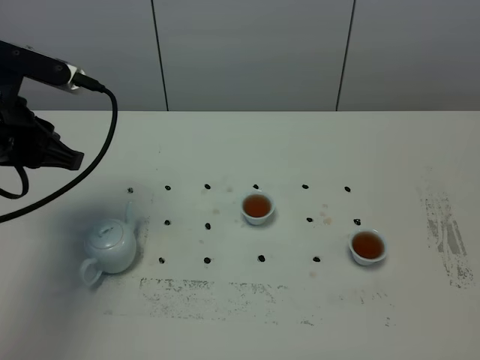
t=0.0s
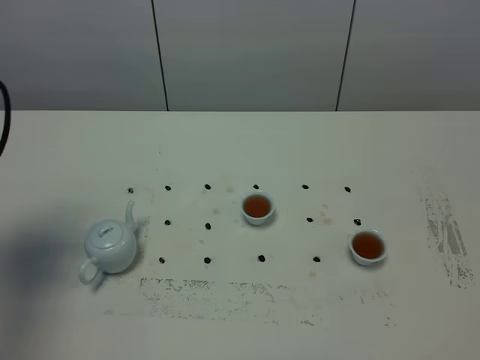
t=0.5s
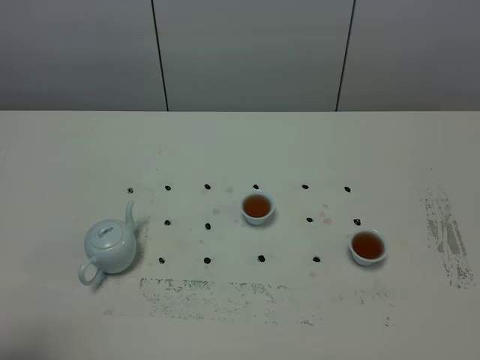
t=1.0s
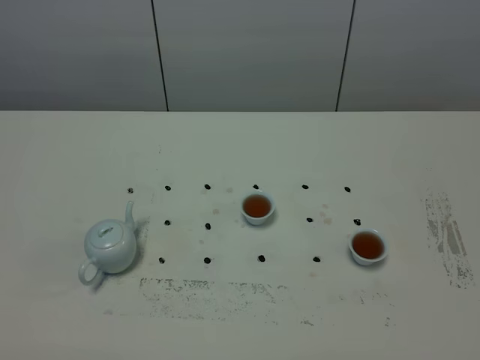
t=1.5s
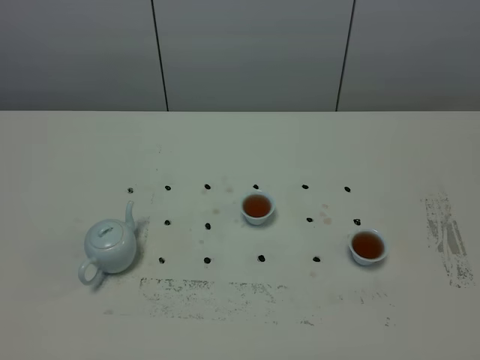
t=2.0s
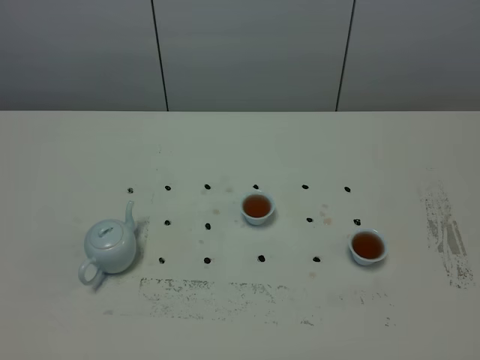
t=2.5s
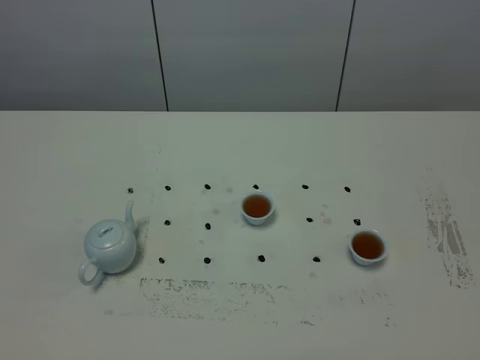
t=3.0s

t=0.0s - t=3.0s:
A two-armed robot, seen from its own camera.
Task of the whole recording: grasp the blue porcelain teapot and pour the tea into the two blue porcelain teacups one by one, put the blue porcelain teapot back in its original place.
t=0.0s - t=1.5s: The left gripper shifts some 30 cm backward.

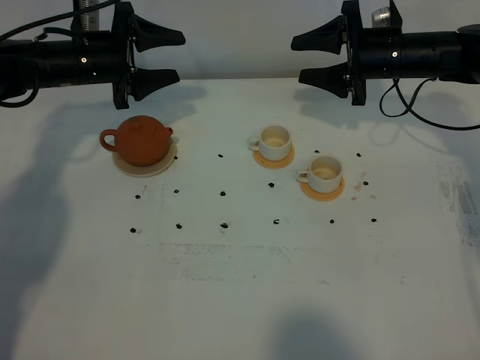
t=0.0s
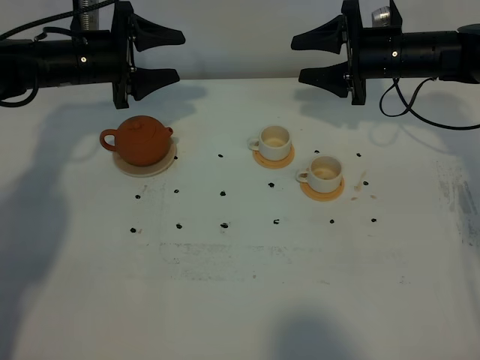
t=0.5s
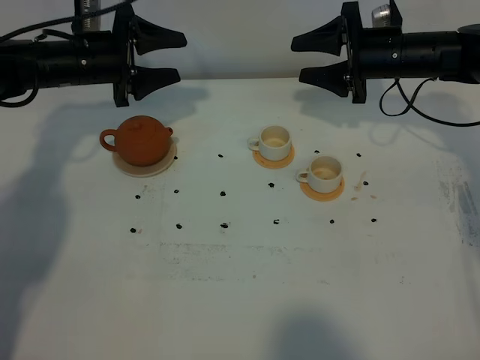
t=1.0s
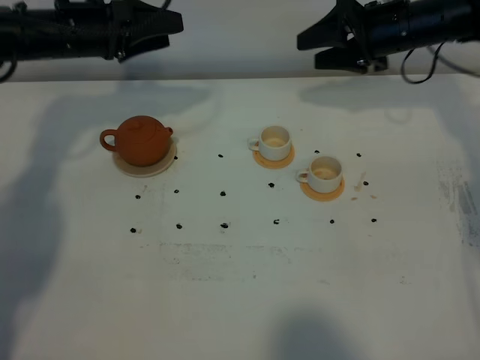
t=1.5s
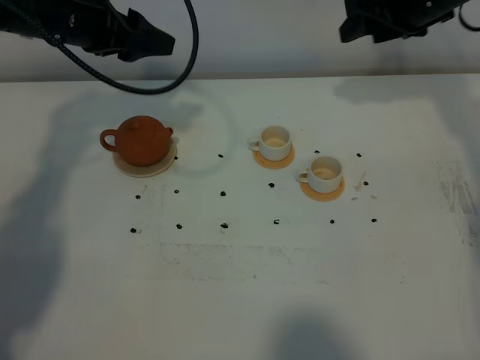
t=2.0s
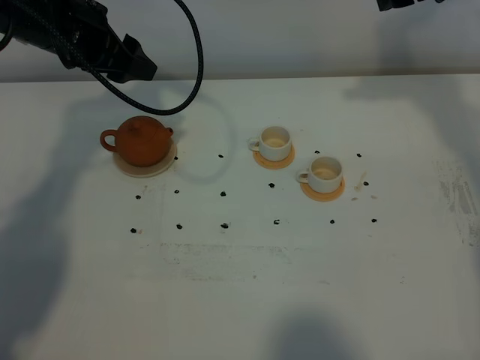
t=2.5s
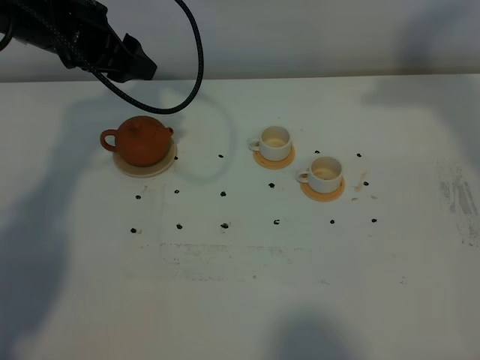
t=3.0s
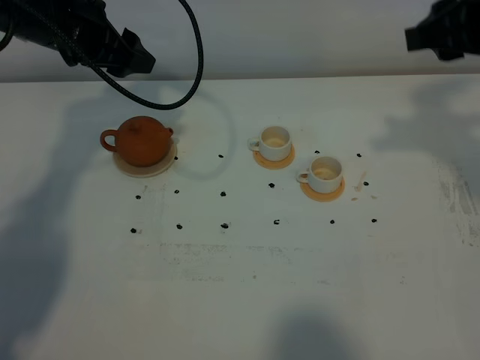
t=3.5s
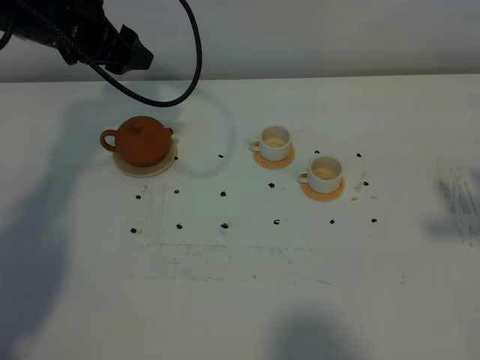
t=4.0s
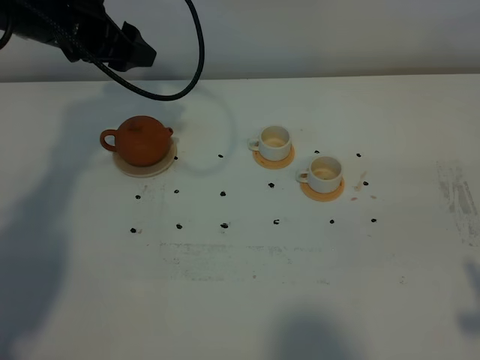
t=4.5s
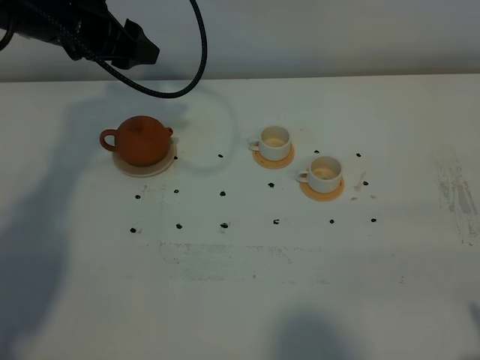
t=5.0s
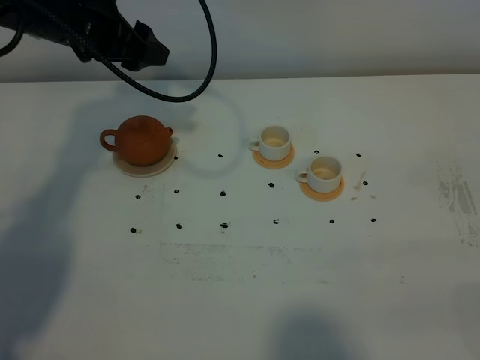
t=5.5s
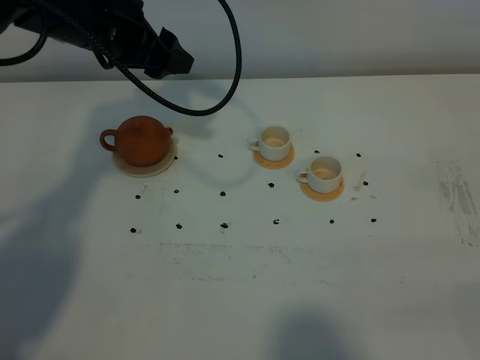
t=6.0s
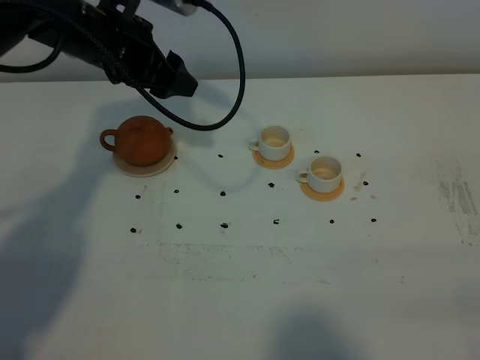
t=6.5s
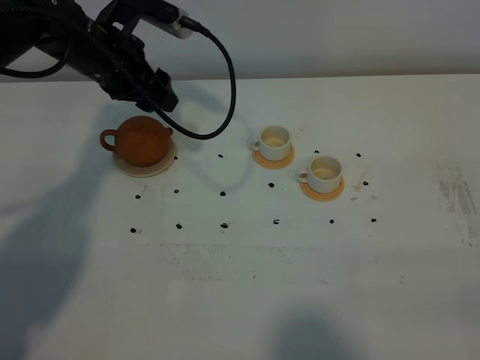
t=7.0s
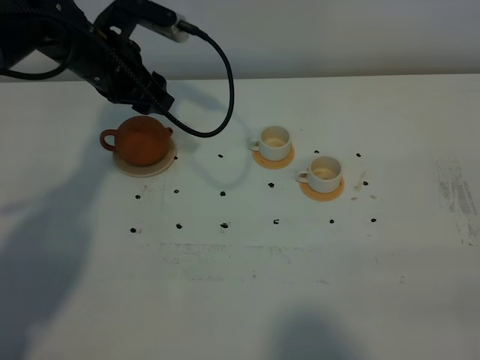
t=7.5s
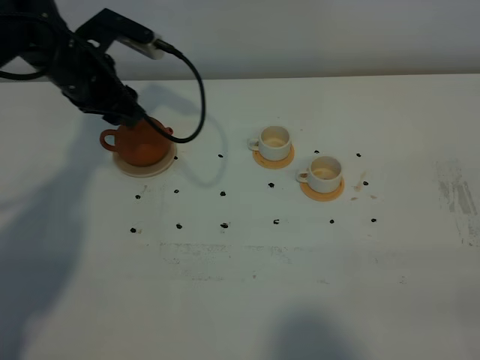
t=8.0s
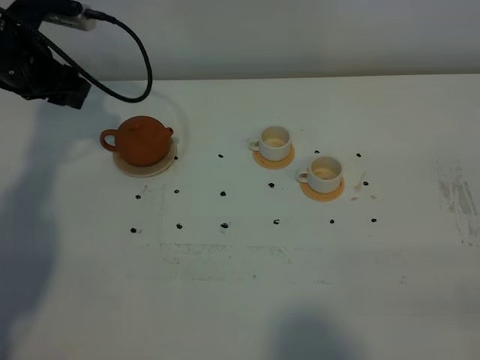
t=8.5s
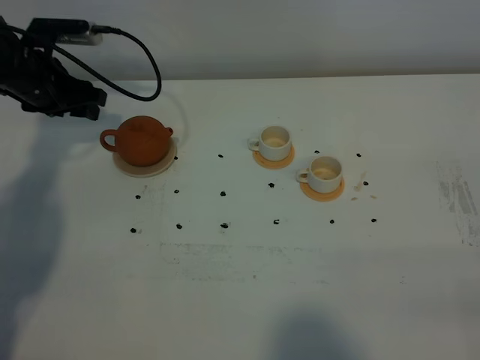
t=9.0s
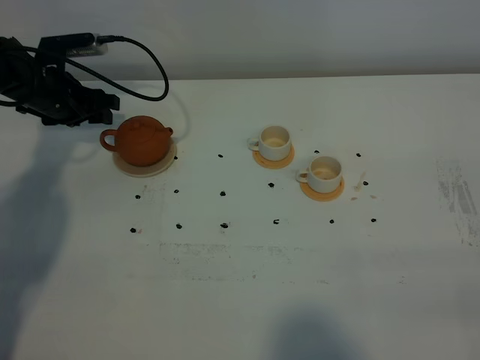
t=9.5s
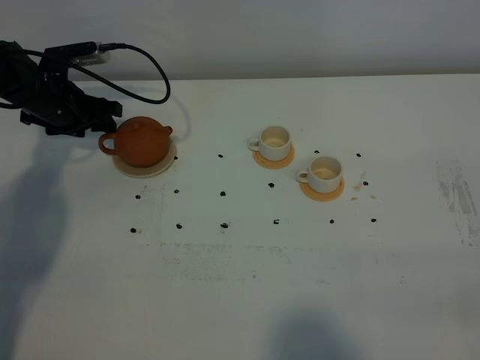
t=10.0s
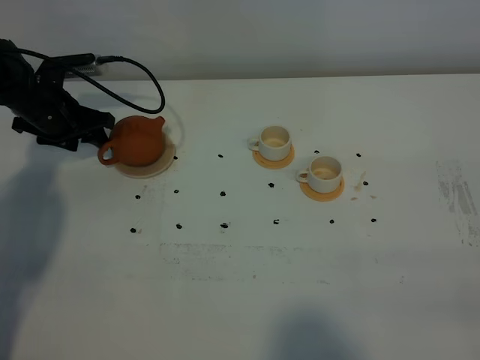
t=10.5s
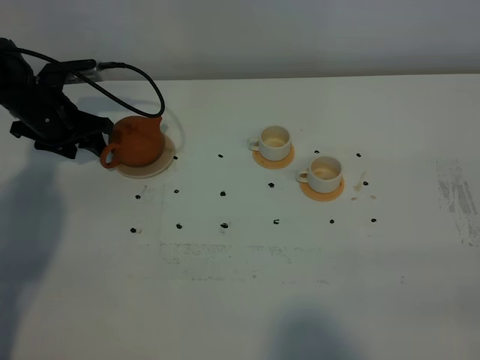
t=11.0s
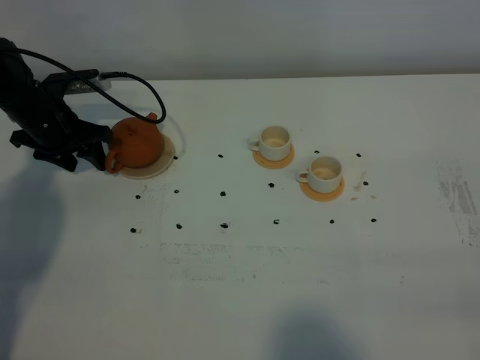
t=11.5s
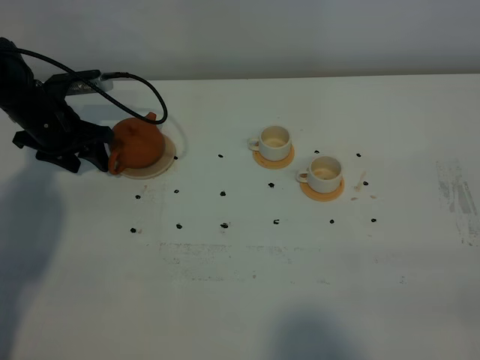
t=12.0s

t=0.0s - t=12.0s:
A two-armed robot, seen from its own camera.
Task of the whole recording: grasp the brown teapot and pour the tea into the two white teacups one by one, put the brown teapot back in its original place.
t=0.0s - t=2.0s: The two grippers go approximately 10 cm upward.
t=2.0s - t=4.0s: The right gripper heads backward, covering about 30 cm, and closes.
t=4.0s - t=6.0s: The right gripper goes some 20 cm backward and downward, and closes up.
t=6.0s - t=8.0s: The left gripper is displaced downward and to the left by some 10 cm.
t=8.0s - t=10.0s: The left gripper is displaced downward and to the left by roughly 10 cm.
t=10.0s - t=12.0s: The grippers move only a little.

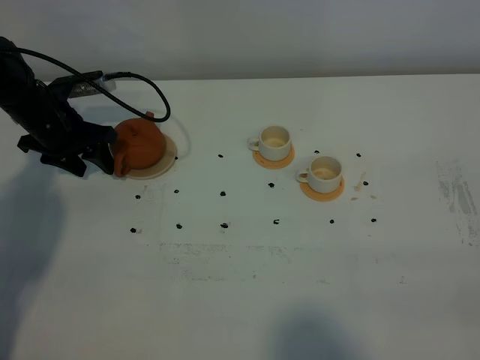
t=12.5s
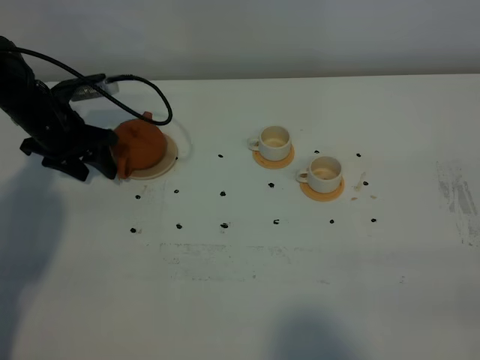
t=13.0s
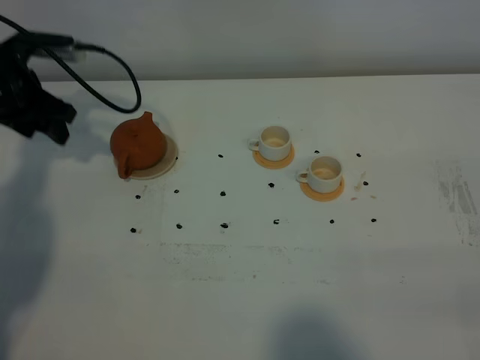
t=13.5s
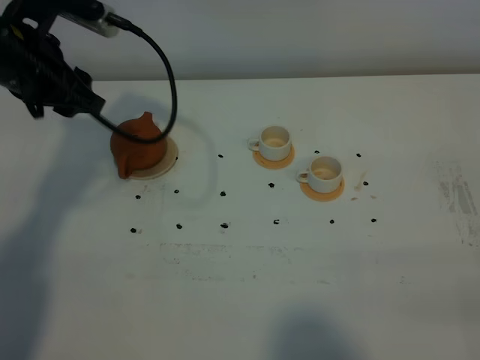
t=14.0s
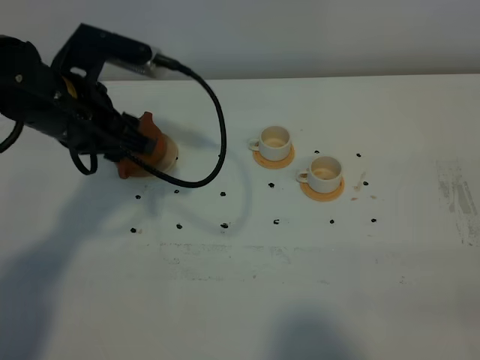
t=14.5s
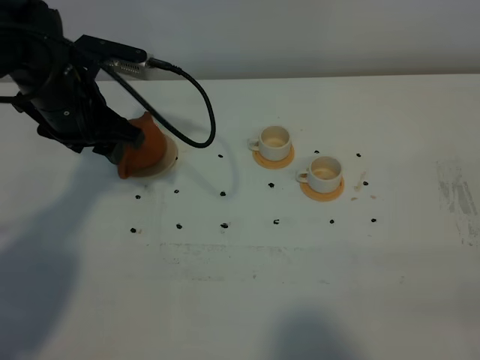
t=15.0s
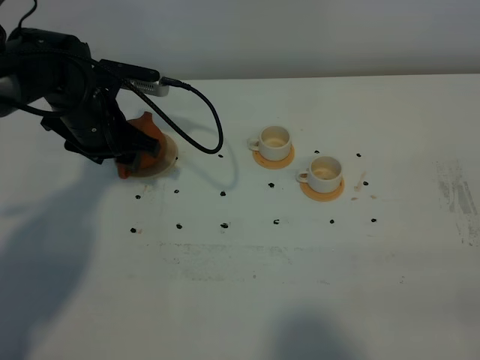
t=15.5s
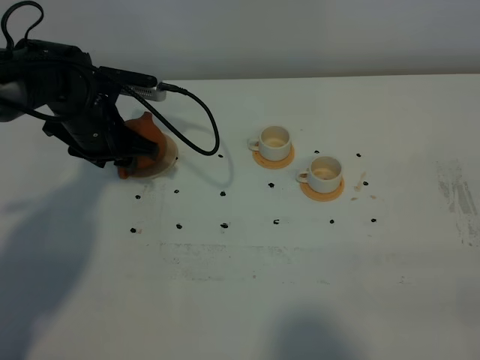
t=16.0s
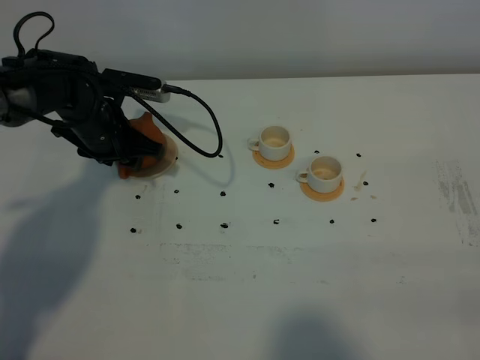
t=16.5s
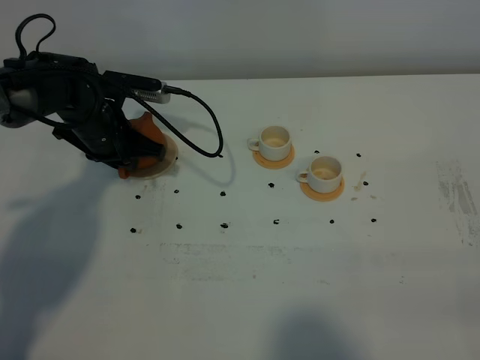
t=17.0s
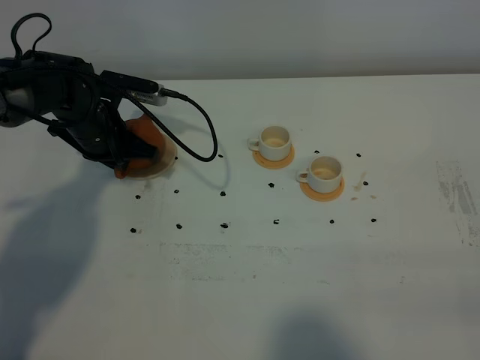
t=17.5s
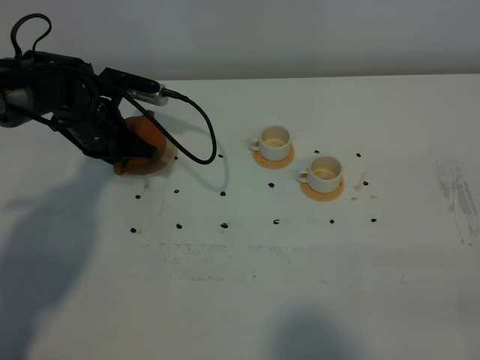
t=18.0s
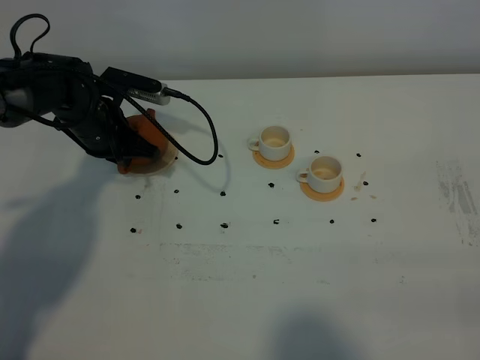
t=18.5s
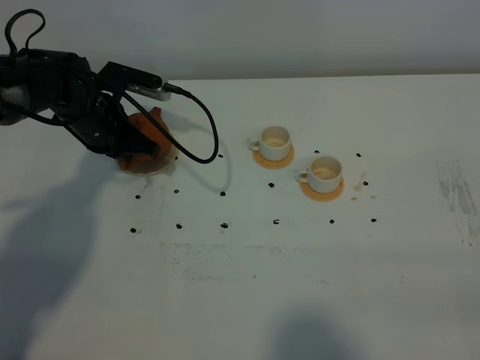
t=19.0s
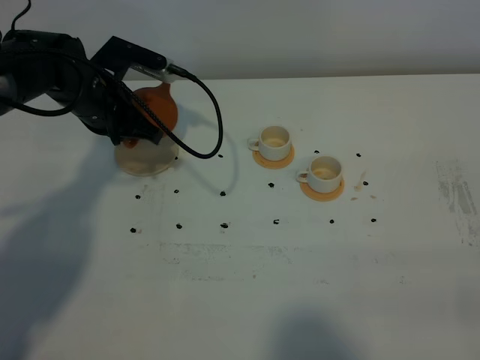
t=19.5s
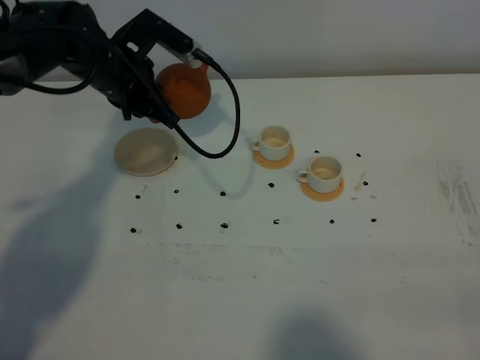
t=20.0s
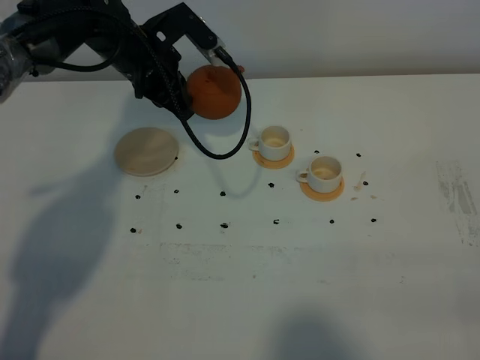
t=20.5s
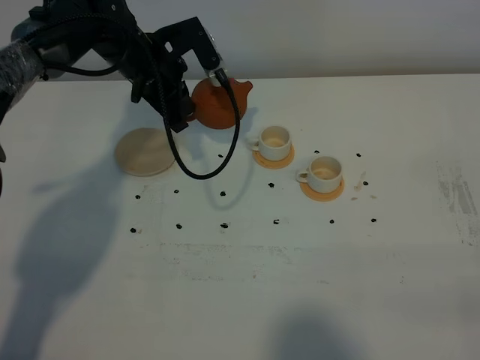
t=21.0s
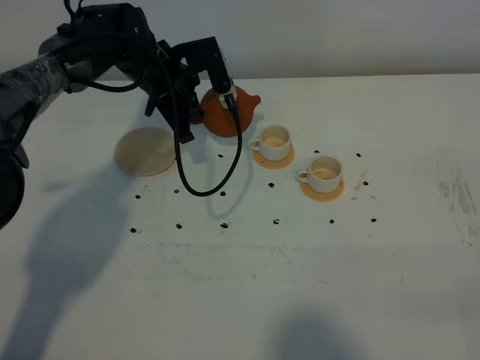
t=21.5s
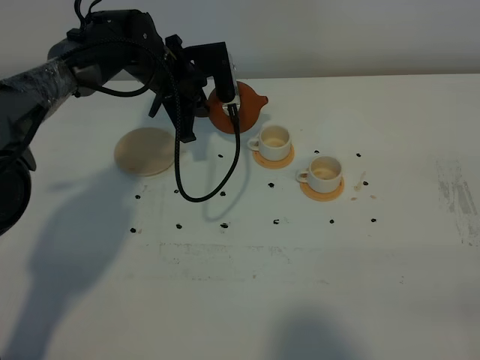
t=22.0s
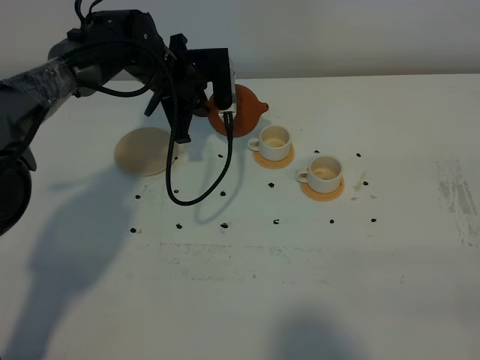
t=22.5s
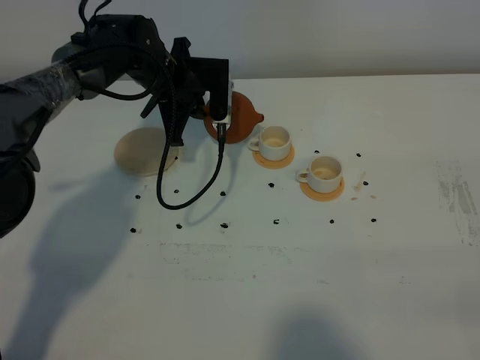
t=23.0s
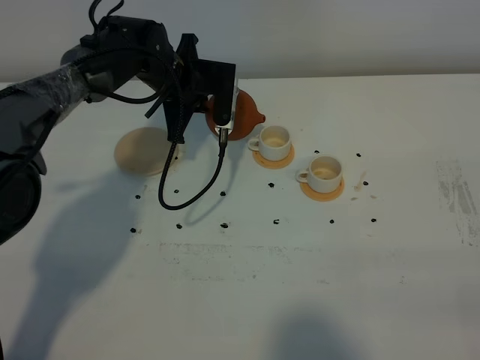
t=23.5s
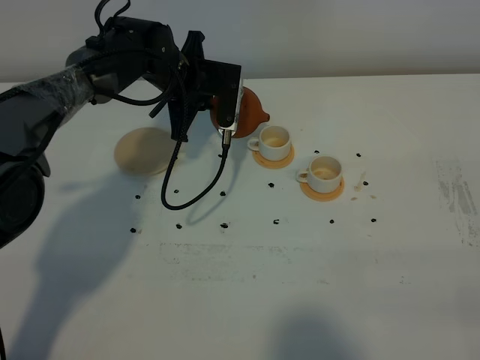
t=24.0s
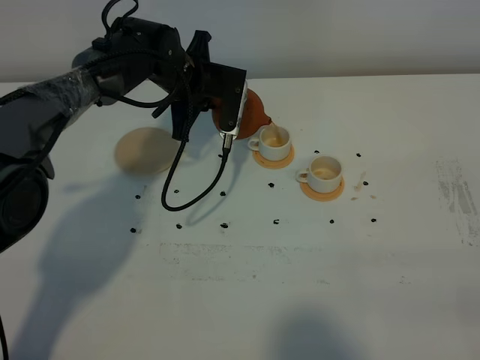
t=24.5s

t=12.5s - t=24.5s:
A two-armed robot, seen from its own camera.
Task of the whole recording: grasp the brown teapot and pour the tea into the two white teacups one by one, put the brown teapot back in its original place.
Step, t=12.5s - t=19.0s: Pick up the teapot with the left gripper.
t=12.5s - t=14.5s: The left gripper shifts approximately 20 cm upward, backward and to the right.
t=14.5s - t=16.5s: The left gripper is displaced downward and forward by some 15 cm.
t=16.5s - t=18.5s: The left gripper closes.
t=18.5s - t=20.5s: The left gripper shifts approximately 10 cm upward and to the right.
t=20.5s - t=22.5s: The left gripper shifts by about 5 cm.
t=22.5s - t=24.5s: The grippers make only small movements.
